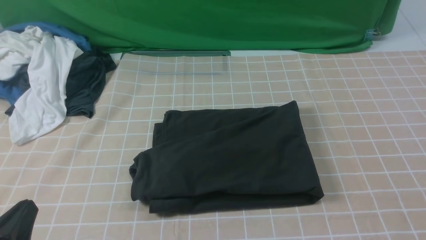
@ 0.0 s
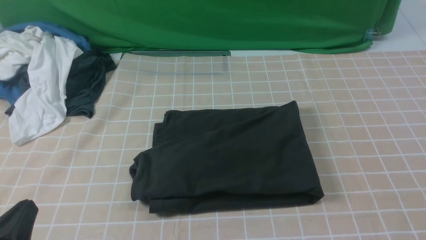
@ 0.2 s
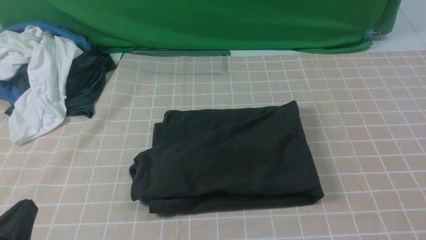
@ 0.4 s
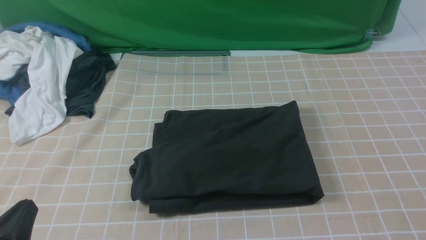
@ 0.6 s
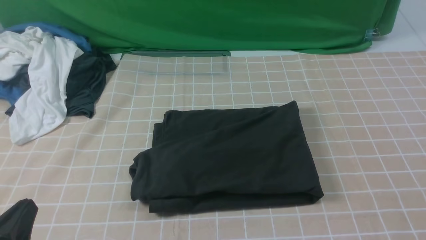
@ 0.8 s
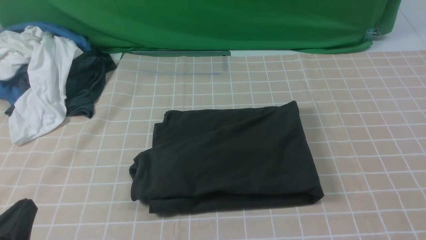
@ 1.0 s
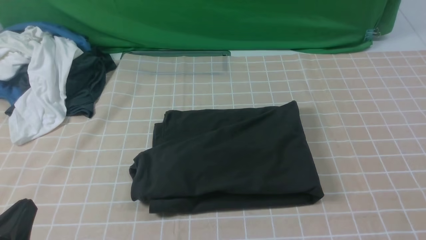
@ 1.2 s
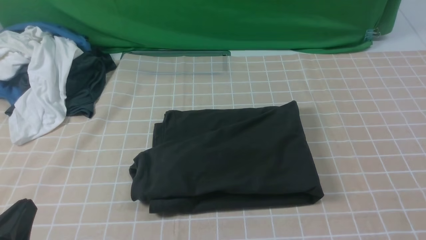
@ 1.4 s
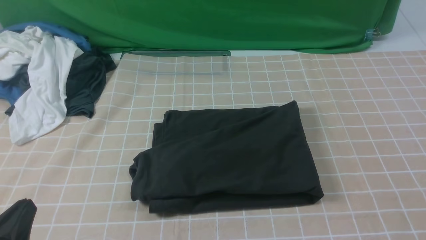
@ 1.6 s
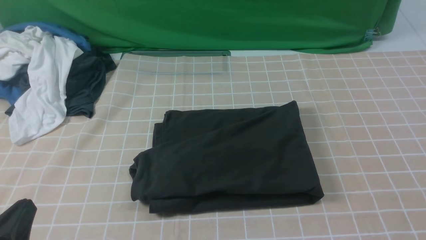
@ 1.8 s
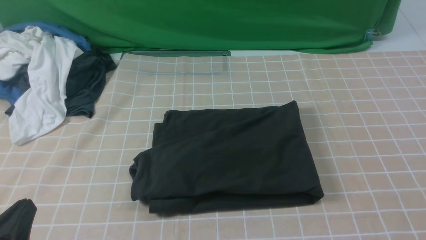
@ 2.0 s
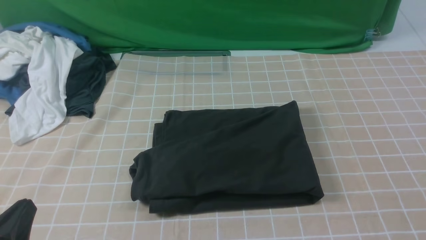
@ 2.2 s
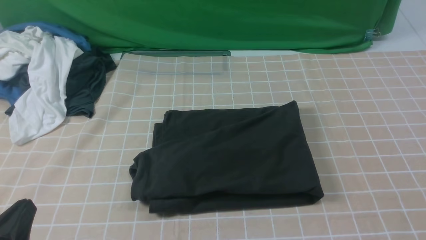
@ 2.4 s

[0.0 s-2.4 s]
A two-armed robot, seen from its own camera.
1.2 to 2.4 s: Both grippers stay put.
